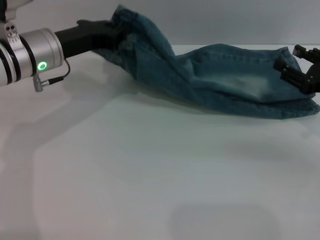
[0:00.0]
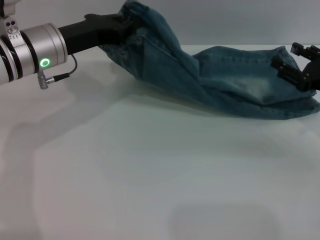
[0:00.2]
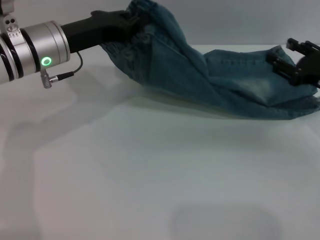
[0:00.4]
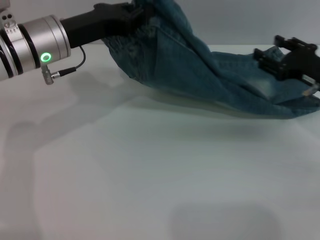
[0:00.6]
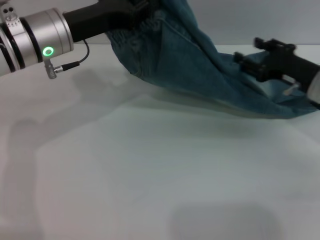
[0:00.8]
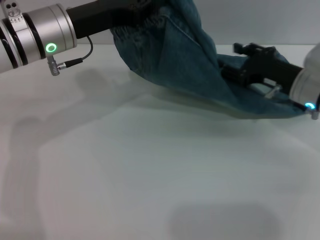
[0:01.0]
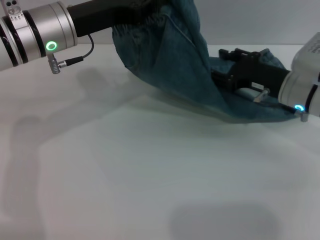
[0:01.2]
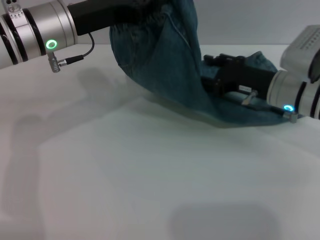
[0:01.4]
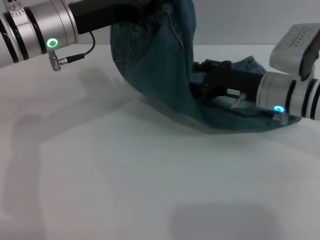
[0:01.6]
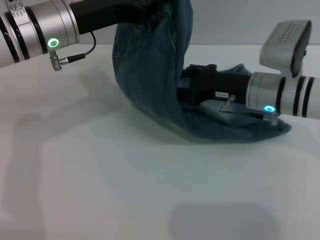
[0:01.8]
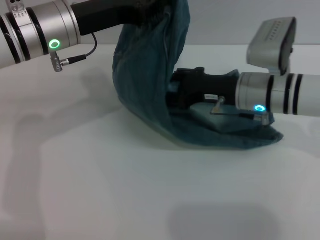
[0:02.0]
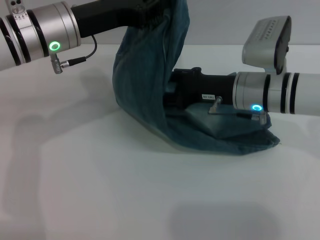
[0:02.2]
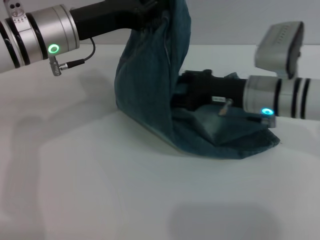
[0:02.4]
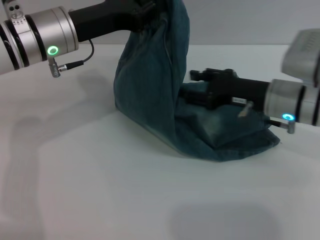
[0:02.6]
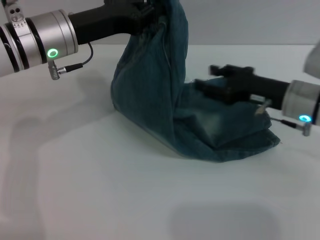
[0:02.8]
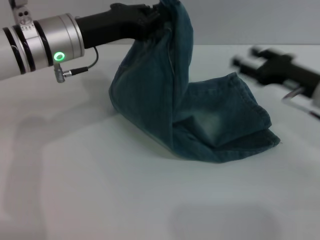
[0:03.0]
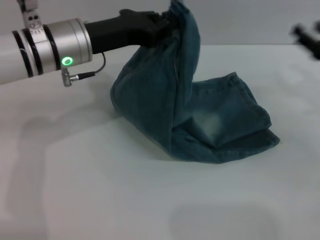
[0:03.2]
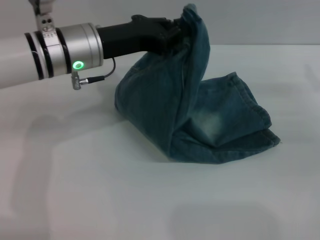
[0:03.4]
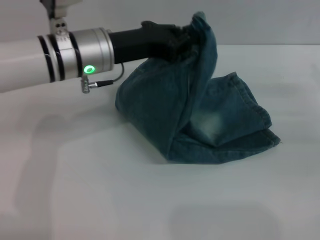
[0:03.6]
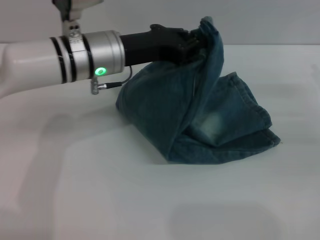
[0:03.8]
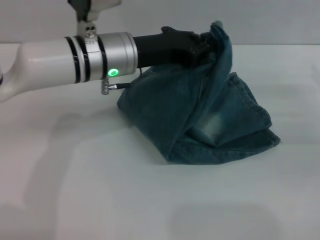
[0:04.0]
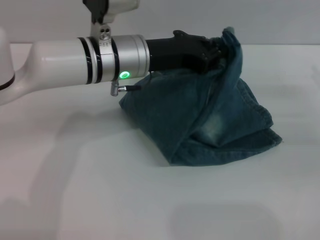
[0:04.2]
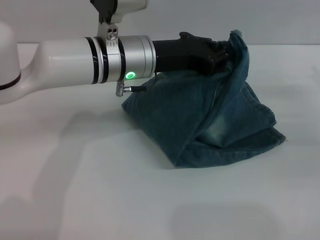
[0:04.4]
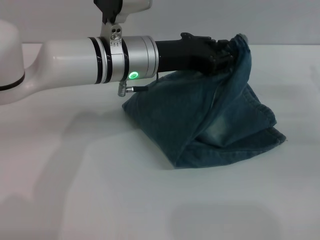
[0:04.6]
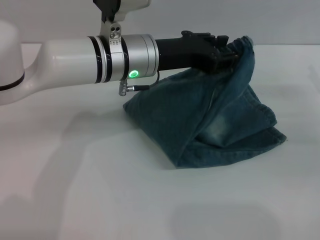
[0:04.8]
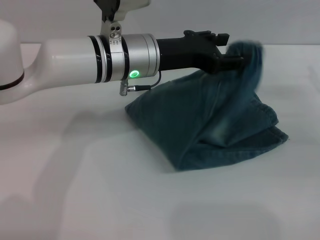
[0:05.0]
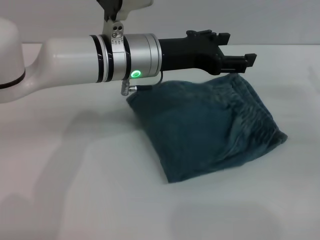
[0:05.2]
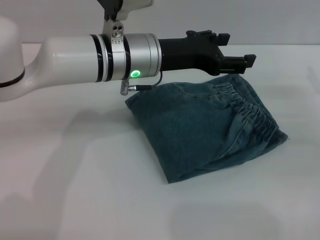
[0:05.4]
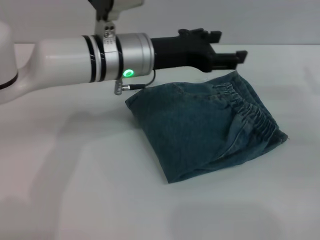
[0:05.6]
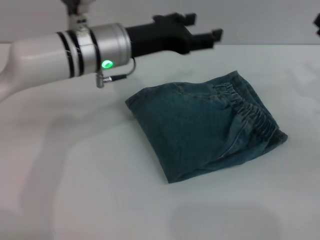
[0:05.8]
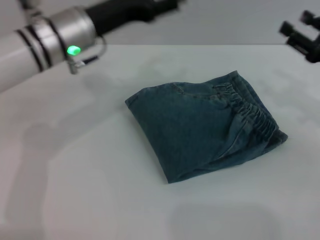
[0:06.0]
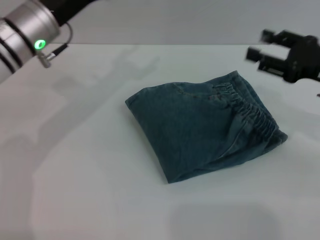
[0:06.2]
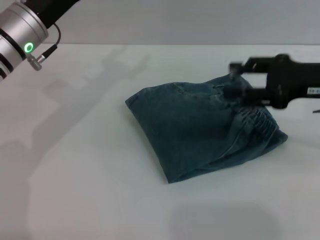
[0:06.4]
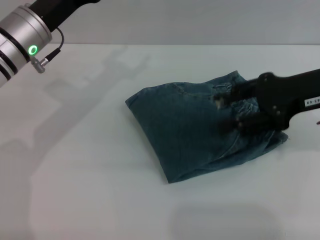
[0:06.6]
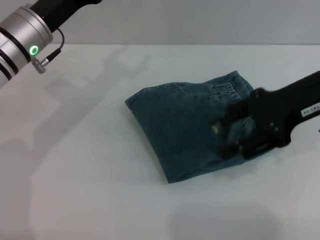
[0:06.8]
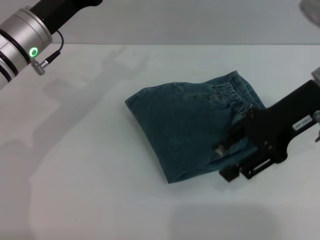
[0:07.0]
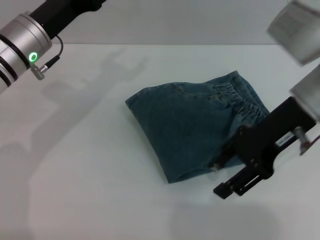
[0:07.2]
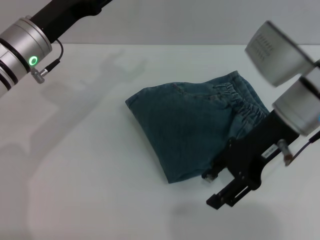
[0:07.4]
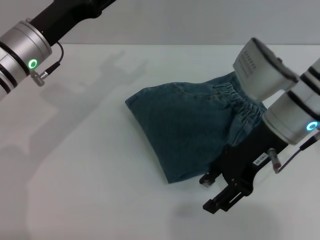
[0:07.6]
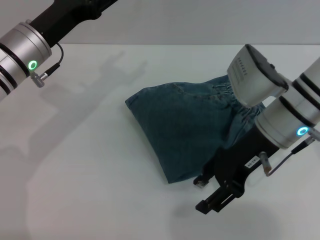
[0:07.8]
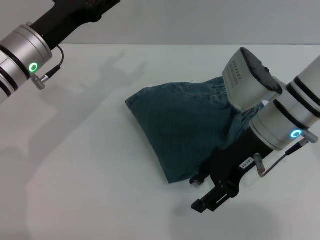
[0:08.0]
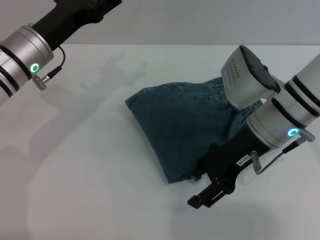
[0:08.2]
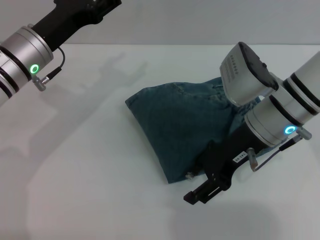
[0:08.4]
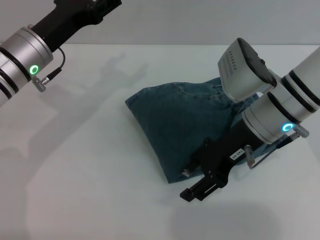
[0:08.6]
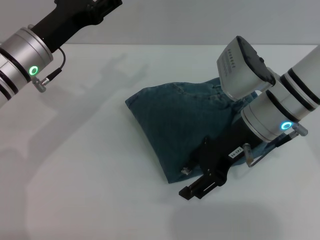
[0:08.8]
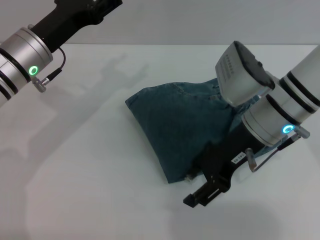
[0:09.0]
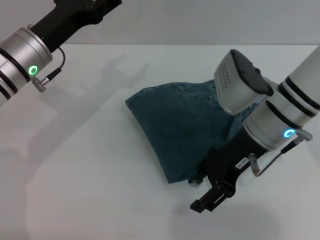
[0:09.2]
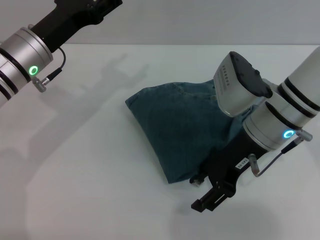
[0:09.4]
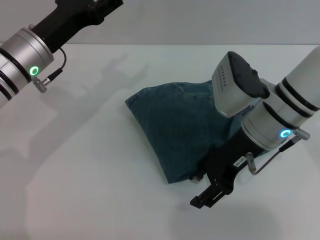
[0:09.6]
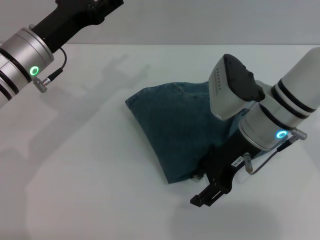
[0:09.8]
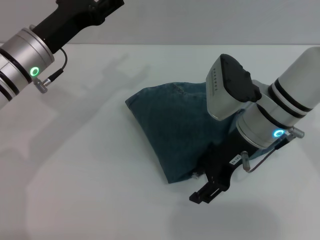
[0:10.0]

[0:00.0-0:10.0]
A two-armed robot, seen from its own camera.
Step, 0.0 to 5.6 s: Fold the pants from left to right with the left gripper.
0.0 to 1.4 s: The right gripper is displaced to the left and forward by approximately 15 cm.
2.8 to 4.2 s: The right gripper heads to the right, covering some 15 cm, while the left gripper heads to the right, covering roughly 10 cm.
4.2 to 5.8 s: The left gripper opens.
5.8 to 7.2 s: The left gripper is displaced to the left by roughly 10 cm. The right gripper moves to the left and upward, roughly 20 cm.
7.2 to 8.6 s: The right gripper shifts by roughly 5 cm.
8.6 to 10.0 s: The grippers make only small movements.

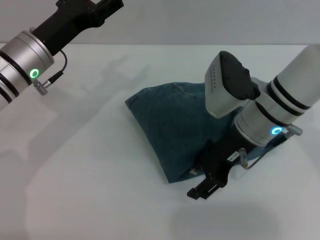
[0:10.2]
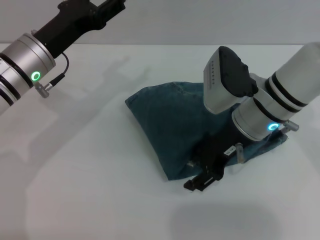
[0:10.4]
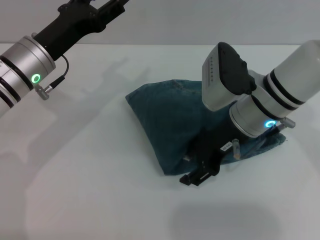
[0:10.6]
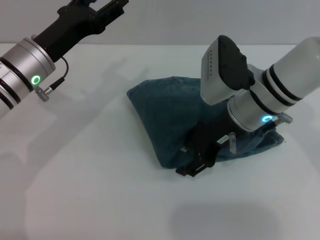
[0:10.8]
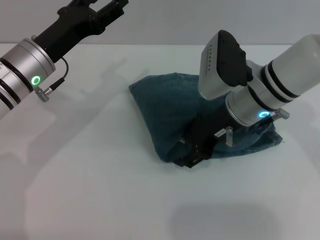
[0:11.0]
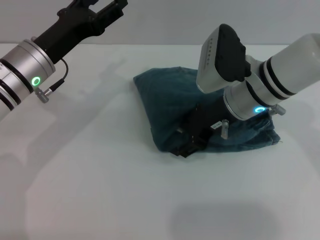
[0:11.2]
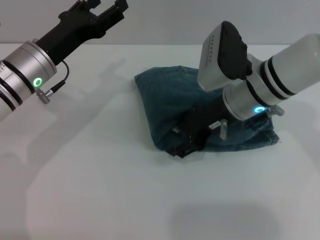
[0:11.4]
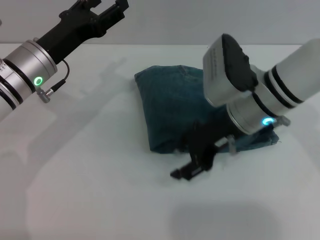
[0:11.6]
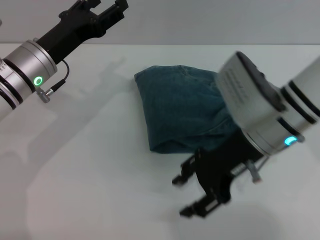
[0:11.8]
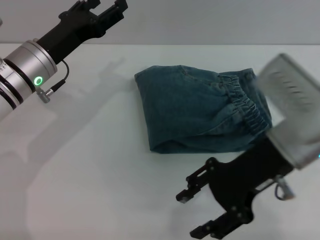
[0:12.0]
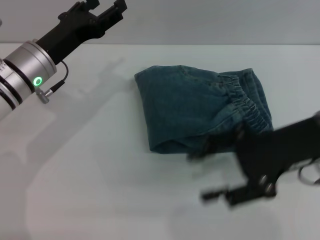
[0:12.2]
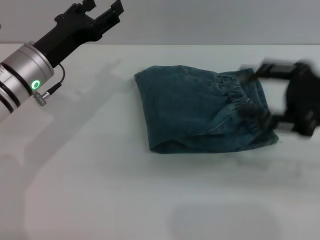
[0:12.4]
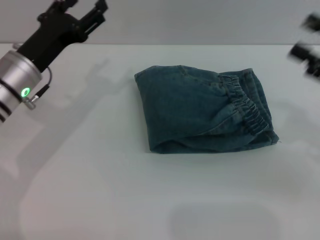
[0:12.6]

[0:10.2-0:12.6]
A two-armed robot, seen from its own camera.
11.4 to 12.6 s: The right gripper is displaced to the right and backward by about 20 cm.

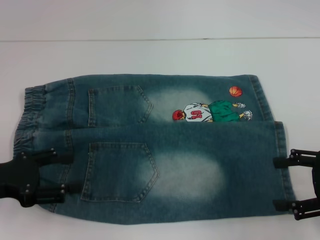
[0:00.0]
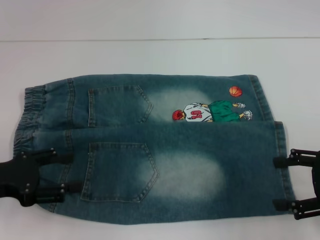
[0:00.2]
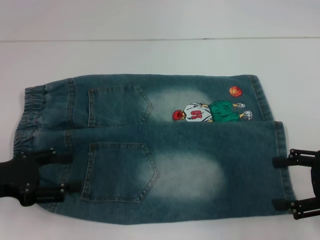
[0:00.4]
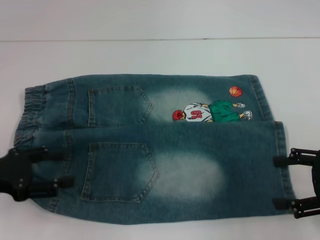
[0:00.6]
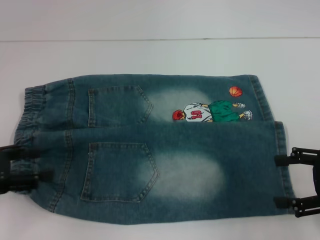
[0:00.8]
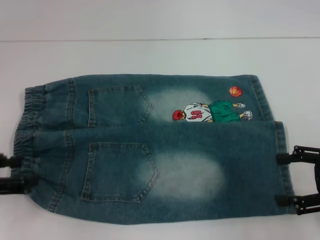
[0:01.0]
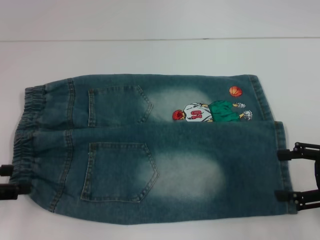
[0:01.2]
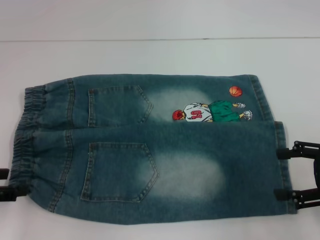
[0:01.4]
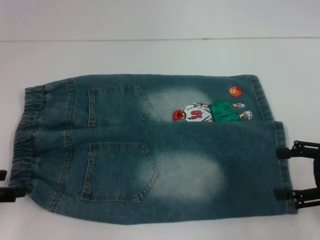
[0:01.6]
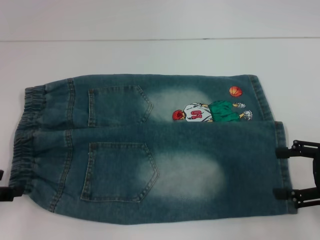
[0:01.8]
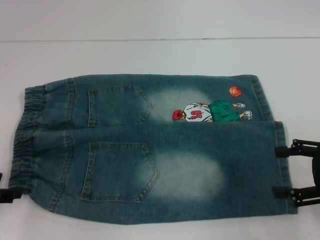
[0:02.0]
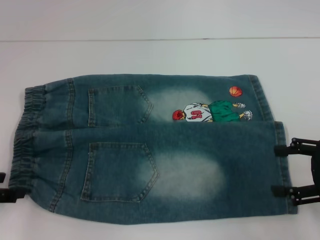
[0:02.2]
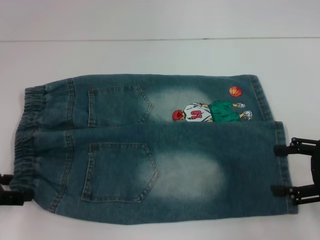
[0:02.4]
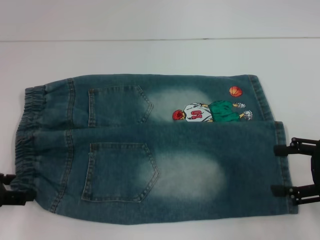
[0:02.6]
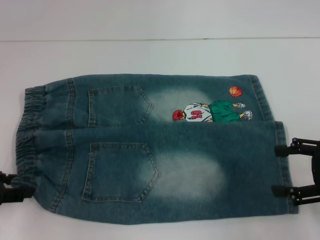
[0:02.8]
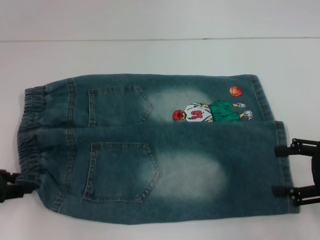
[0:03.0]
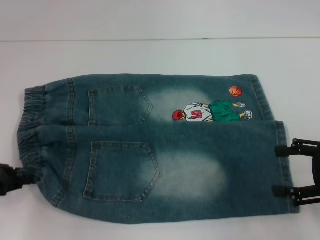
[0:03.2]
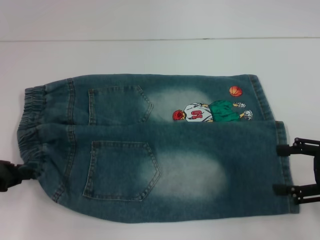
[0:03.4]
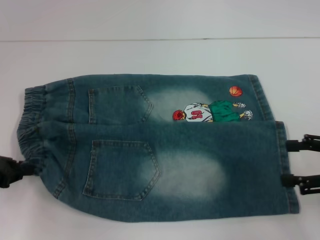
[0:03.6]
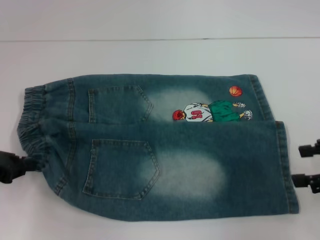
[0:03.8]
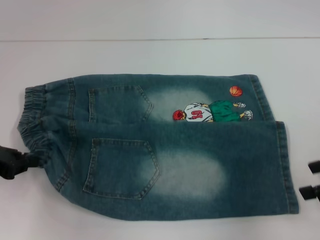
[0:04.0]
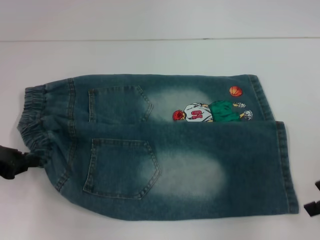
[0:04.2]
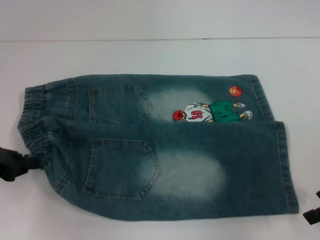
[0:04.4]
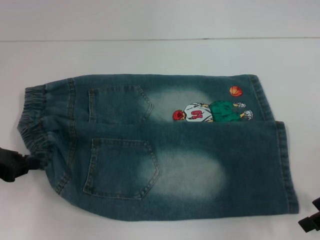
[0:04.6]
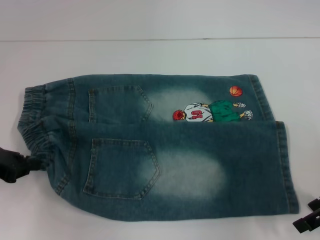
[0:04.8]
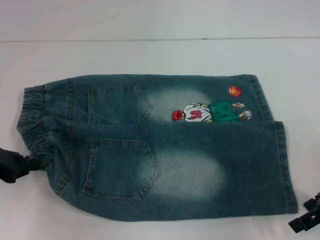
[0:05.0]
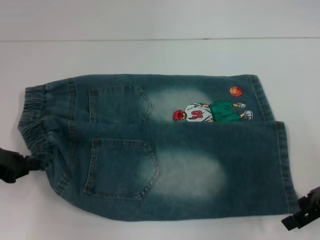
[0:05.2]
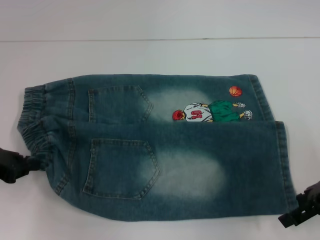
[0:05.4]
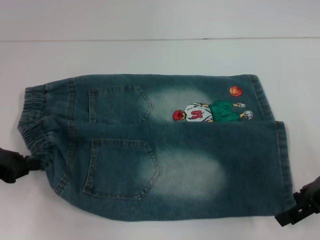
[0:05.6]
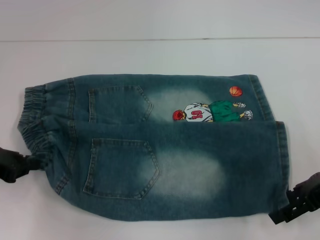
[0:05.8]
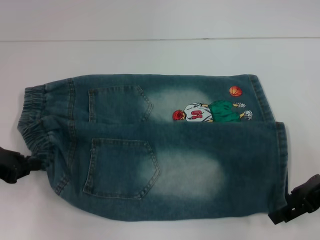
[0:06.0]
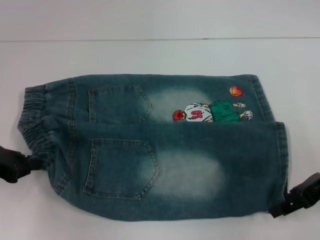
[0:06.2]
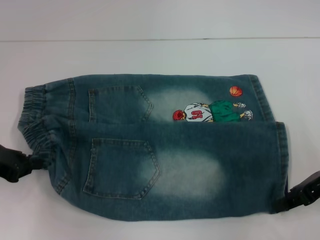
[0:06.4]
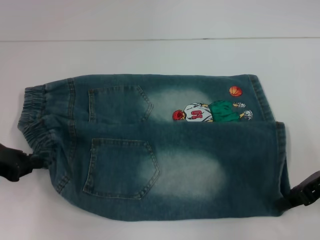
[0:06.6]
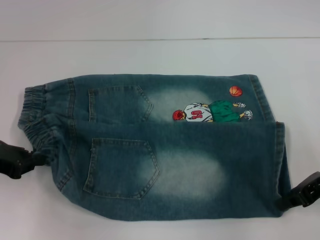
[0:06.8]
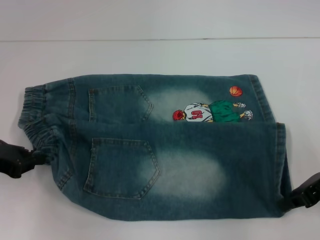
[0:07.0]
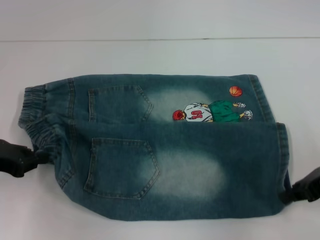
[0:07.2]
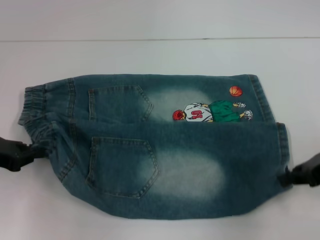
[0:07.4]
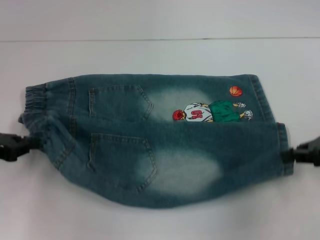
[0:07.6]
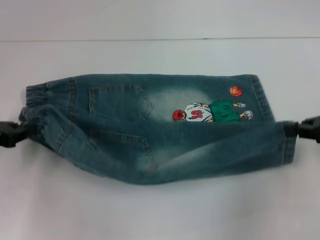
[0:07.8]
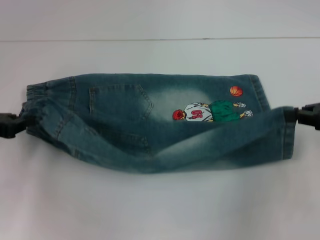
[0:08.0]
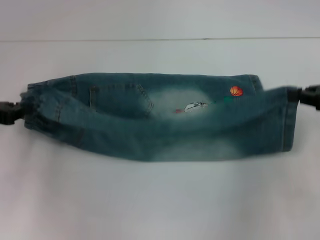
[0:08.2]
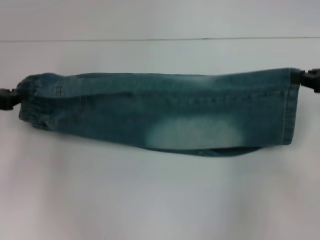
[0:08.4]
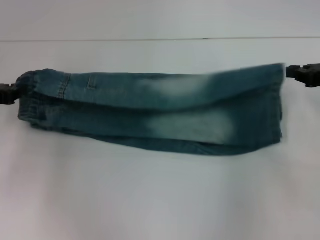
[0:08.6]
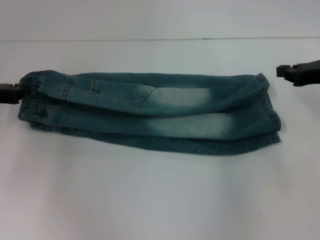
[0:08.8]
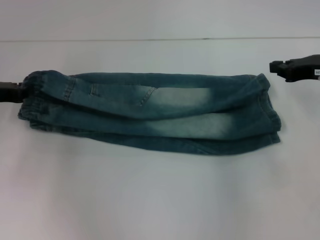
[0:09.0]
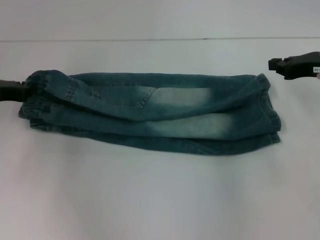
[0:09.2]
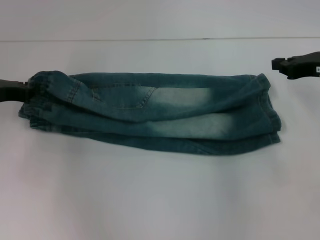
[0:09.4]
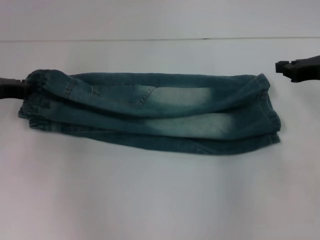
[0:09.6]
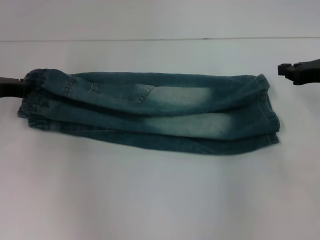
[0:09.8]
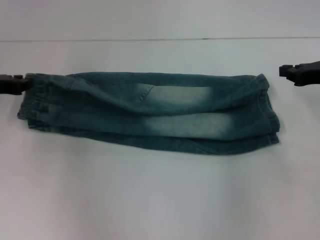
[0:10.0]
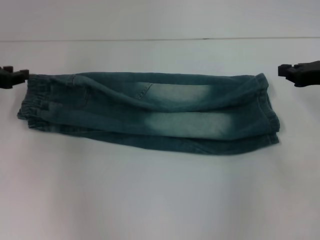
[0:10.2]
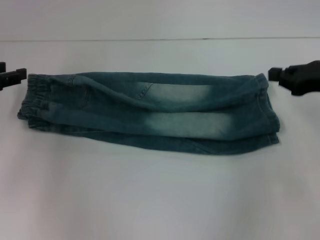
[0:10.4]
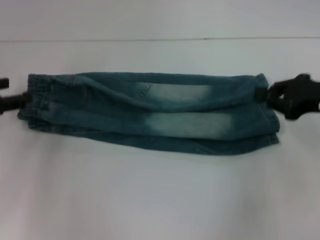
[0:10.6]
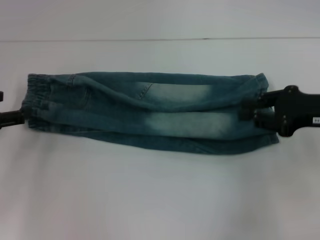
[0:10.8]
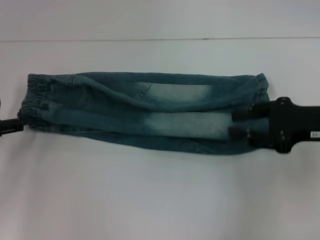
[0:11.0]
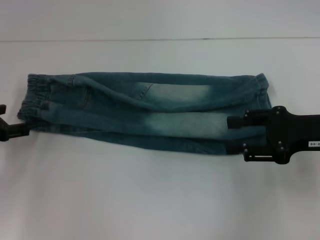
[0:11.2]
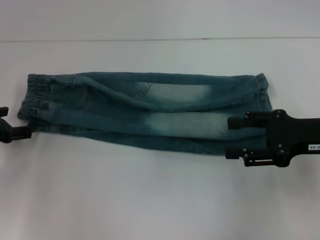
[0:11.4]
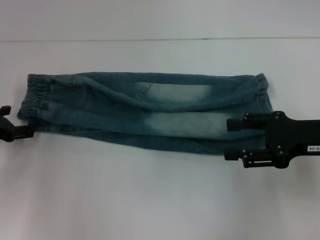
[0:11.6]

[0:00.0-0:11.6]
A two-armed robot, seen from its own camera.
Step, 0.0 to 3.2 s: Hold the lower left waistband with your left hand.
Step, 3.4 to 6.4 s: Grab the lower right pant leg with your right hand.
Step, 6.6 to 10.4 s: Fold upward with your right hand.
1.4 to 2.8 s: The grippers make only small movements.
2.8 to 4.4 s: The left gripper closes up.
4.4 to 5.8 s: The grippers stay close to where they were, moving slightly.
5.8 to 7.2 s: The right gripper closes up.
7.2 to 8.8 s: The grippers both shift forward by roughly 5 cm.
8.8 to 10.2 s: The grippers make only small movements.
10.2 to 11.6 s: The left gripper travels downward by roughly 5 cm, and opens up; the right gripper travels backward by about 10 cm, and opens up.
